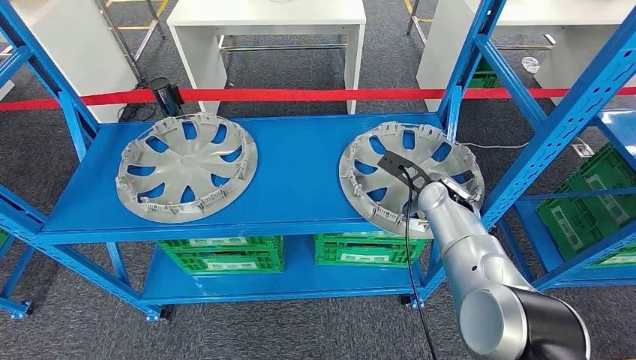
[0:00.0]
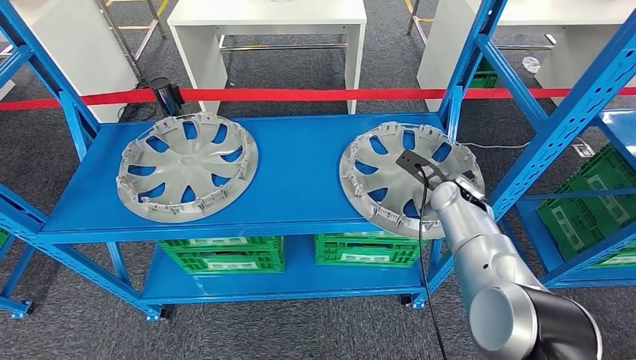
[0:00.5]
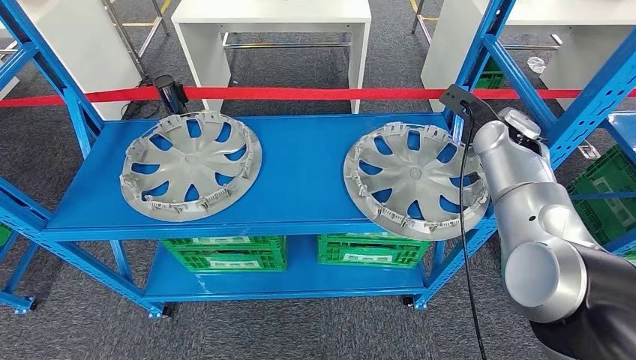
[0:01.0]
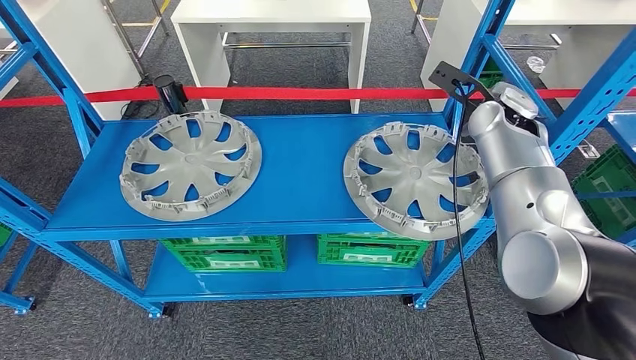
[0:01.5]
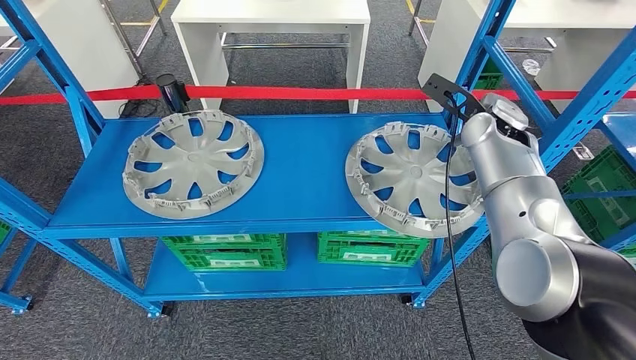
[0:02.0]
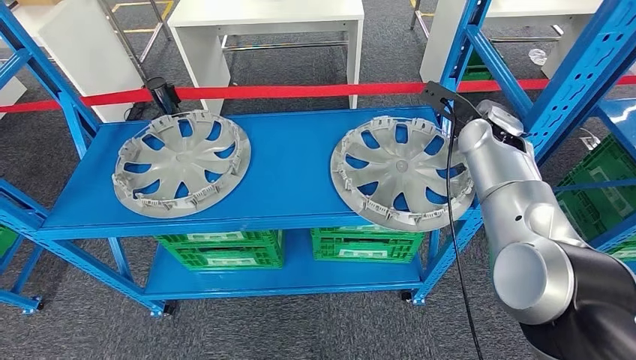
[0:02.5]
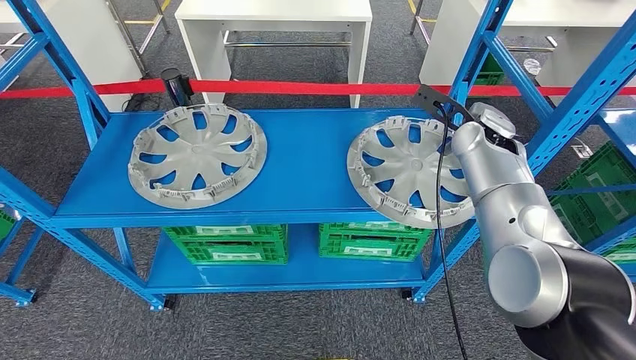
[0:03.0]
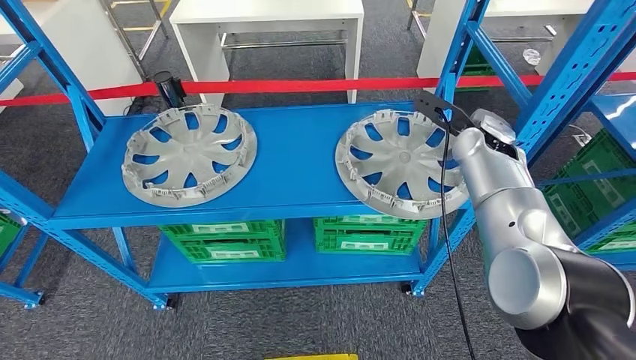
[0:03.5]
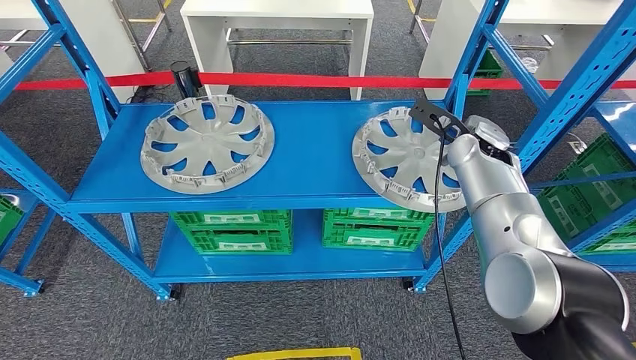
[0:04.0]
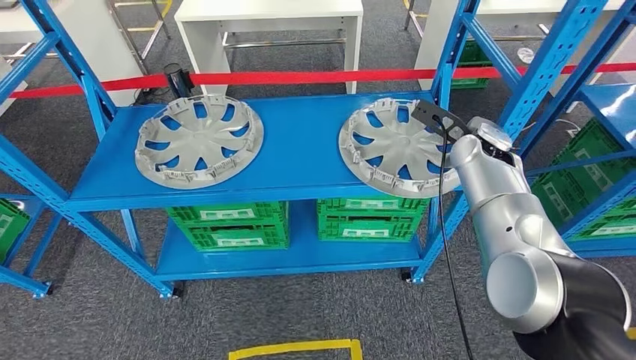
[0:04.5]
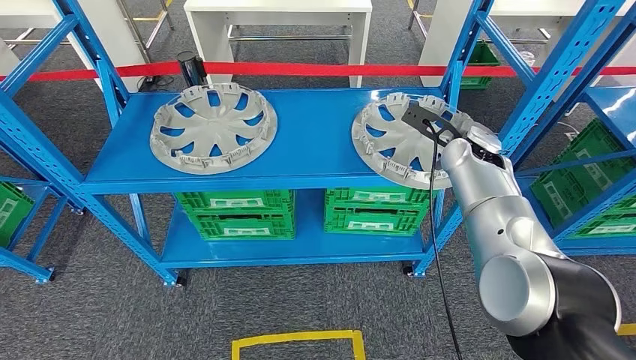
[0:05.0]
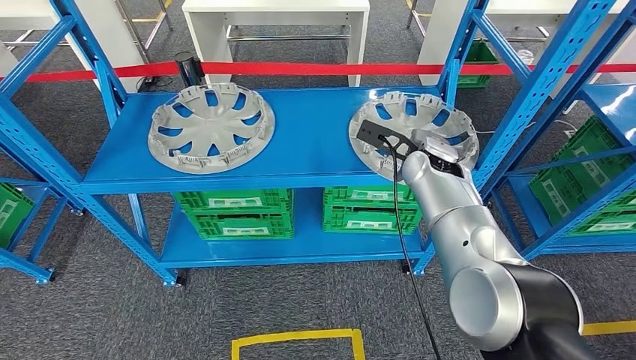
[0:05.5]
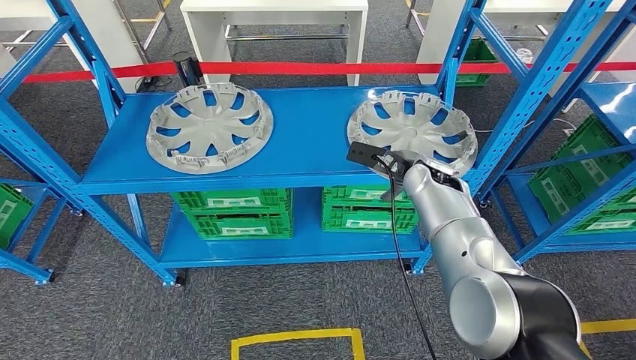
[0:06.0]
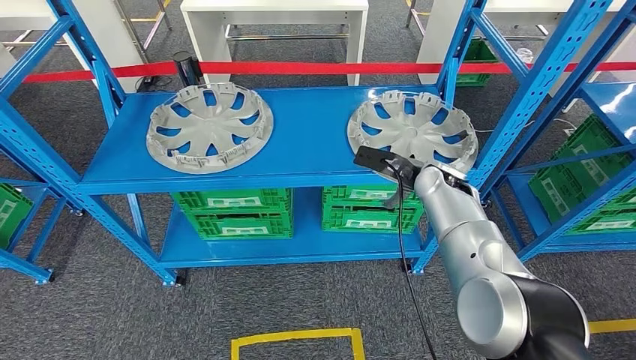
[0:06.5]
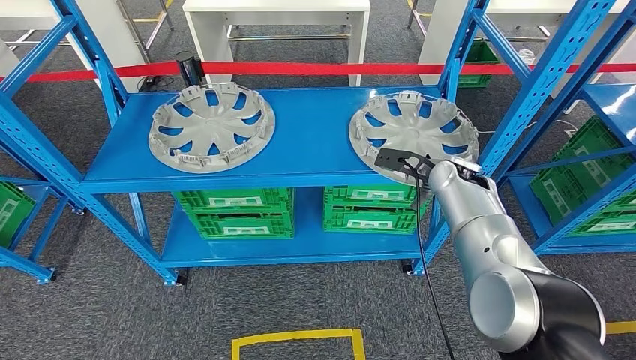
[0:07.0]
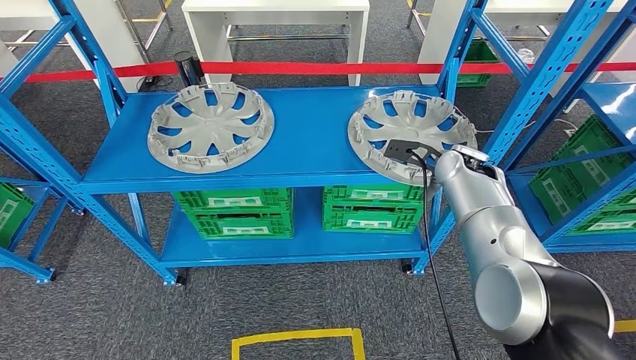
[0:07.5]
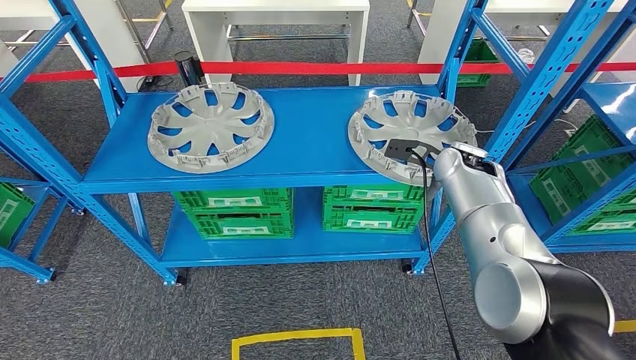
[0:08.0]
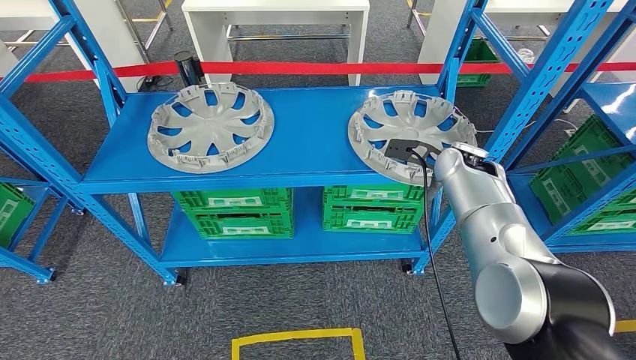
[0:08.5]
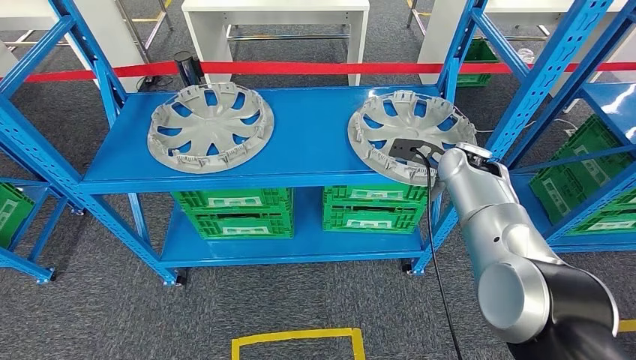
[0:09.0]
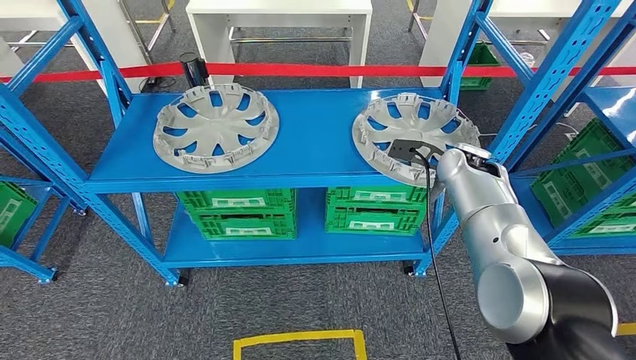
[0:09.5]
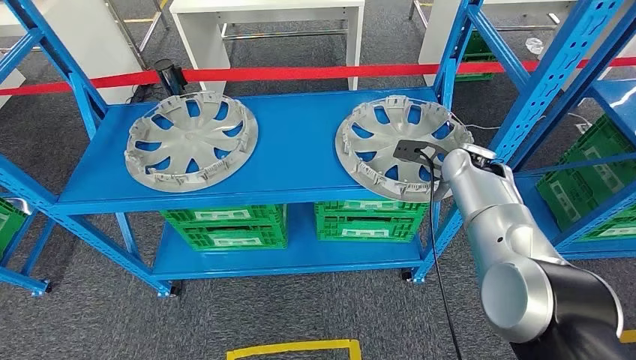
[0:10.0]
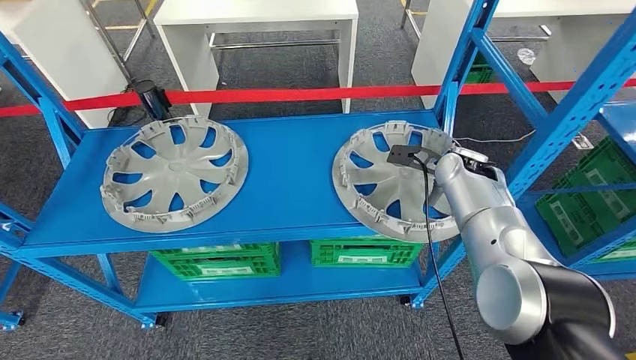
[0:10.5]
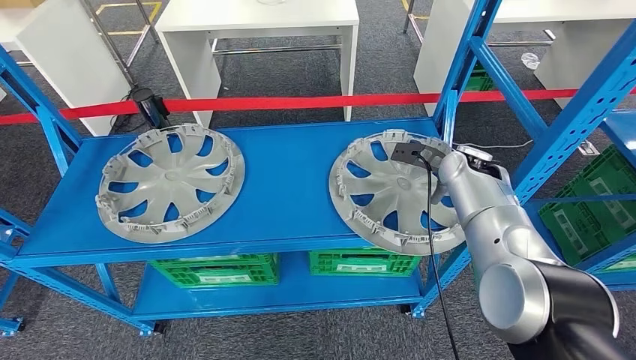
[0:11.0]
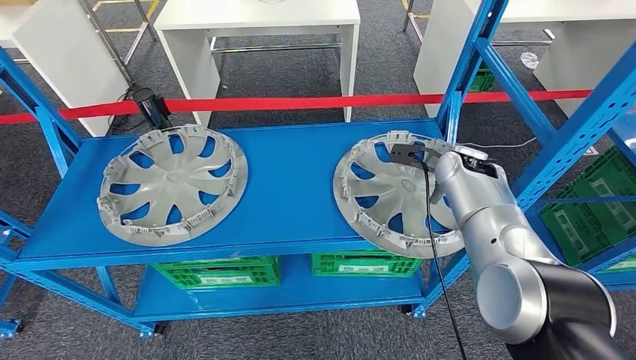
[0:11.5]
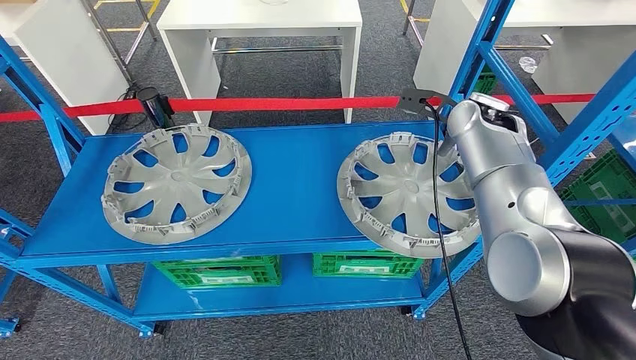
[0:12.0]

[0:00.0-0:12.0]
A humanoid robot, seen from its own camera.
0:06.0 to 0:08.0: The right hand heads to the right, covering approximately 5 cm.

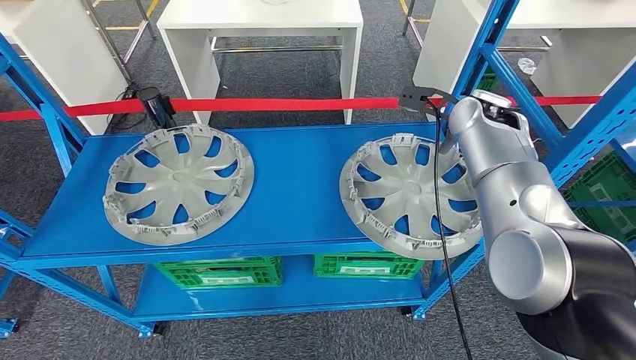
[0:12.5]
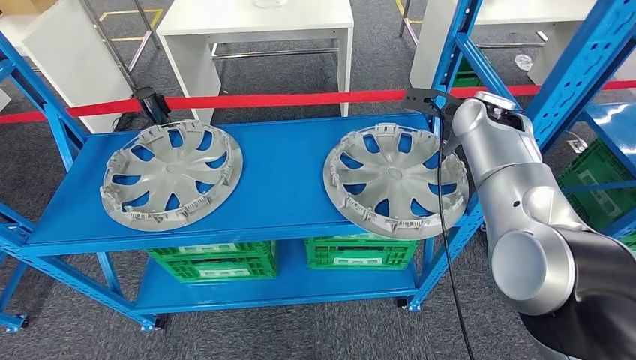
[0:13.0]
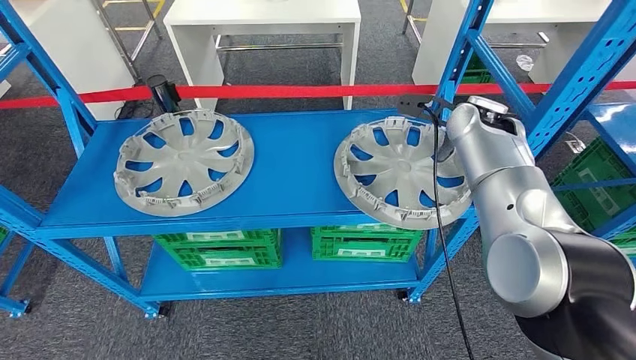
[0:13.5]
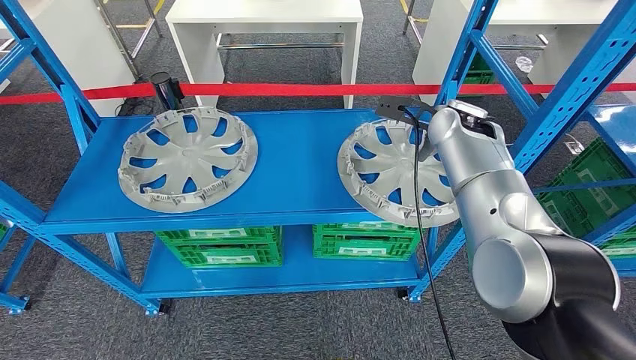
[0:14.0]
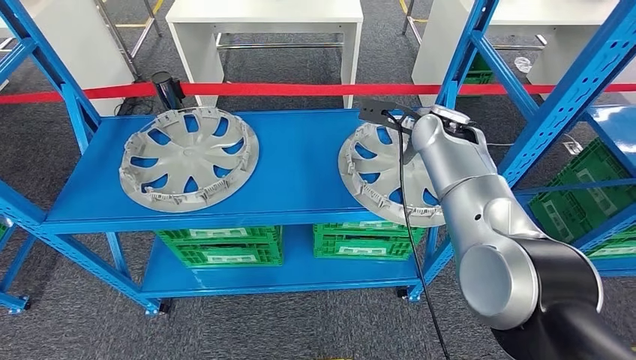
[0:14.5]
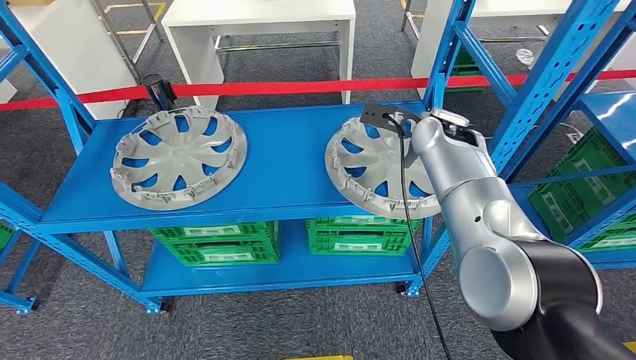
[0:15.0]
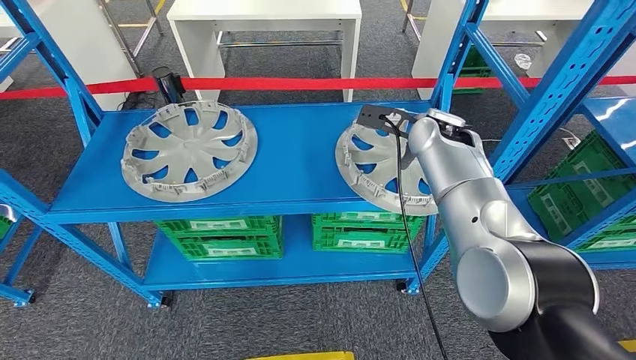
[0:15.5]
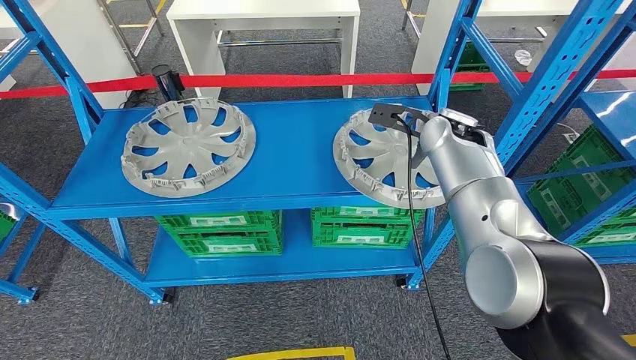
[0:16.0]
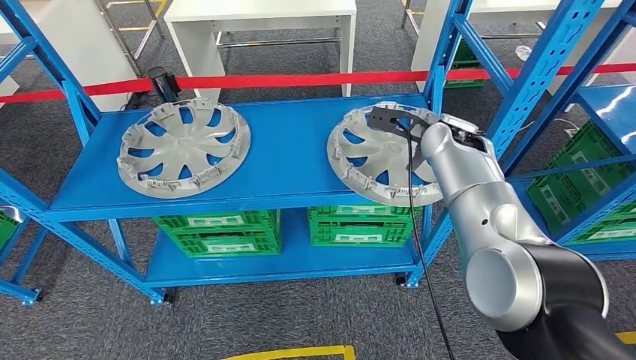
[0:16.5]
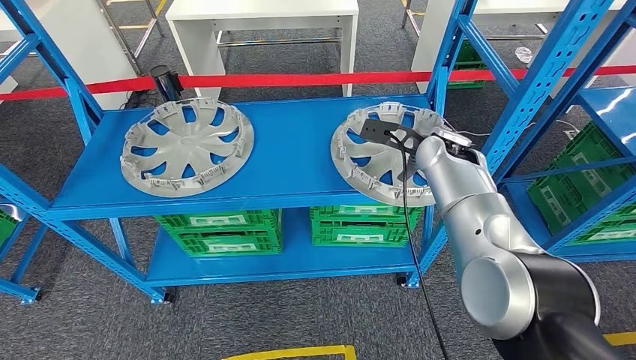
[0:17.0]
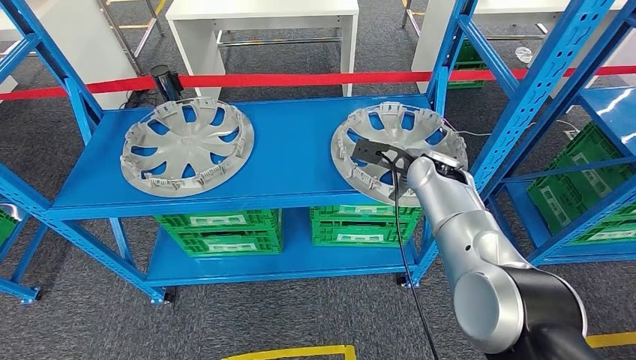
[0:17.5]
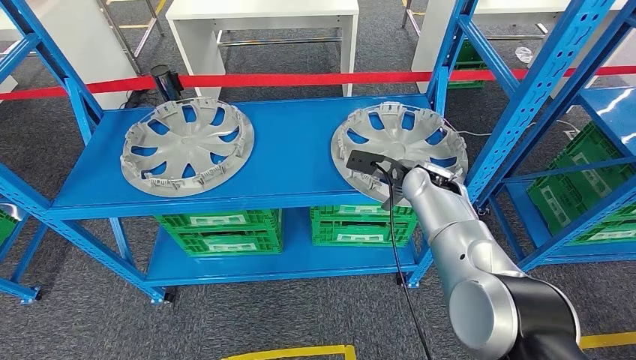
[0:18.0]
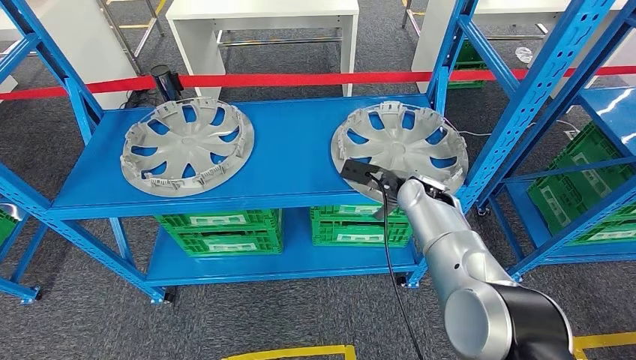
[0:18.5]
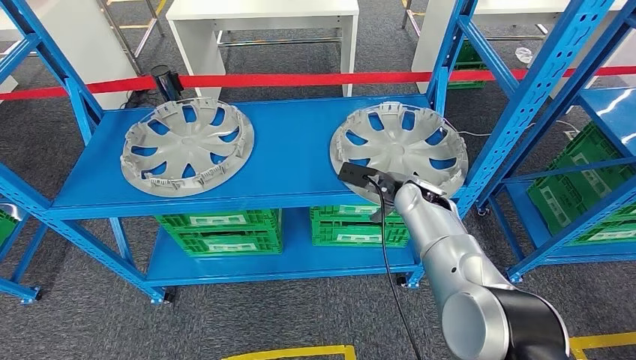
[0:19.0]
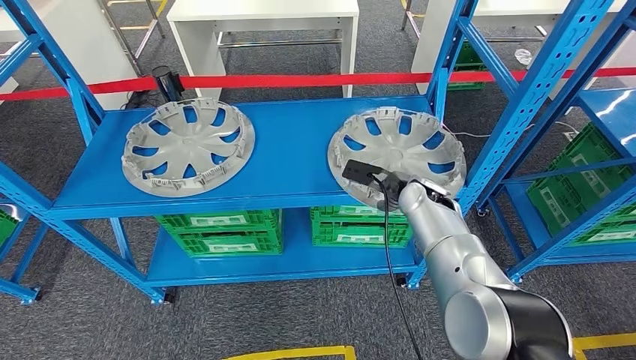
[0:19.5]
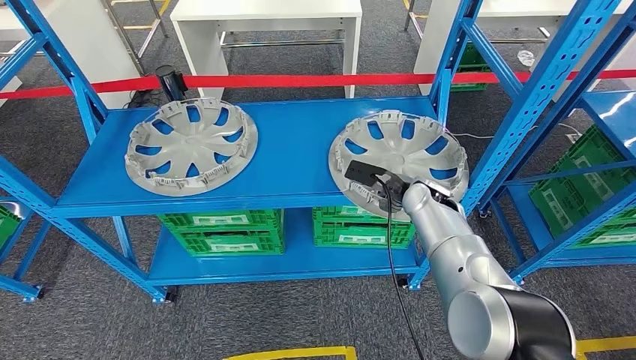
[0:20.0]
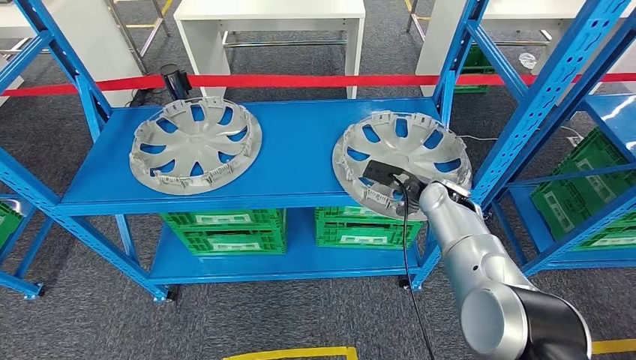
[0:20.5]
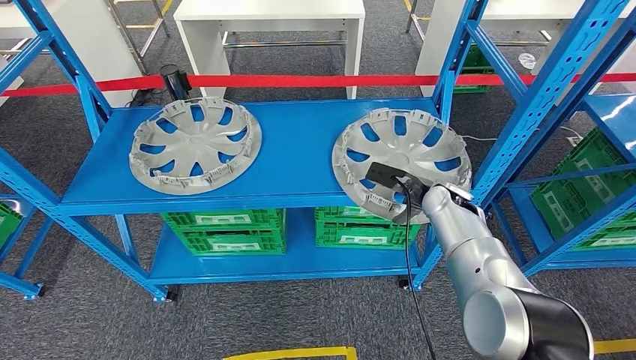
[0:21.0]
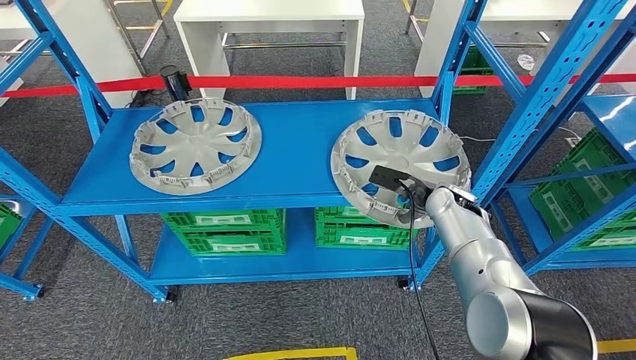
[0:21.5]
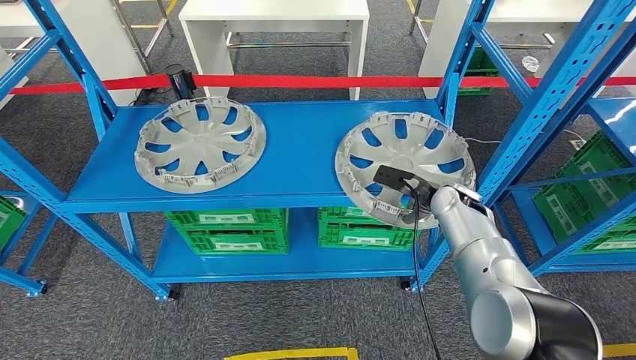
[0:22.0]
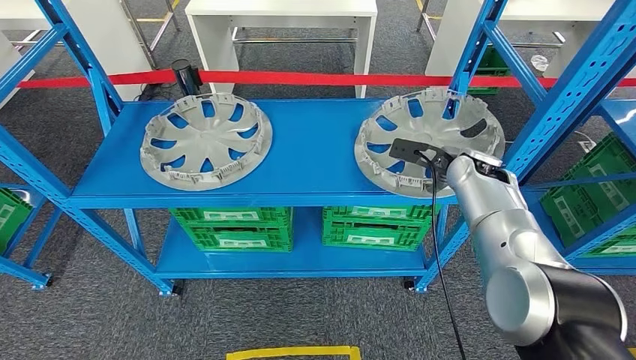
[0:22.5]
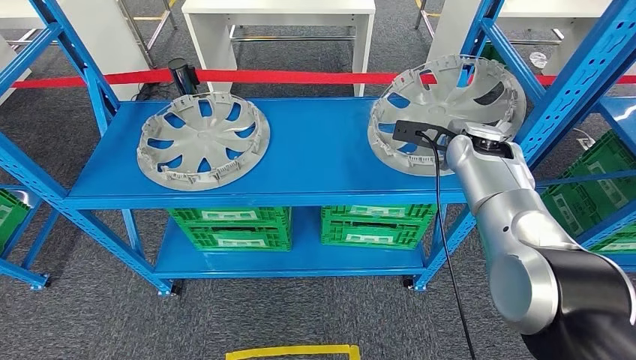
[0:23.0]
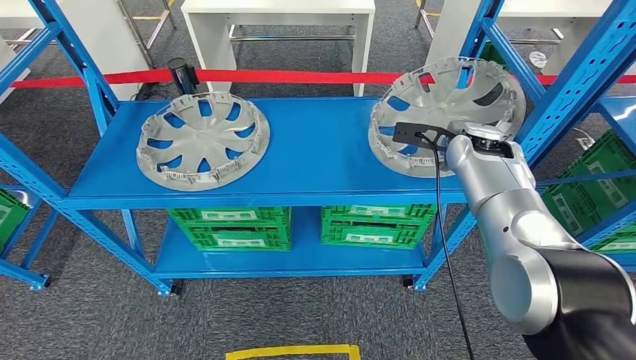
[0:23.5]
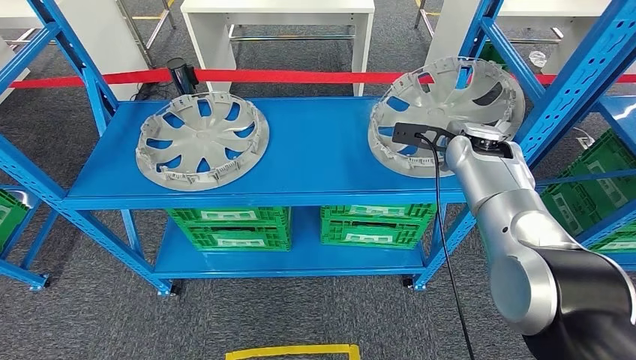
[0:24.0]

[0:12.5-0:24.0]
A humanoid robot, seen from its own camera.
0:18.5 to 0:20.0: There are only small adjustments of the hands.
